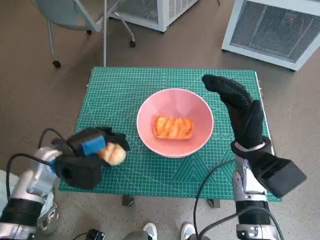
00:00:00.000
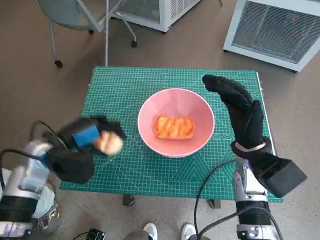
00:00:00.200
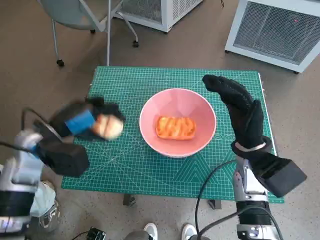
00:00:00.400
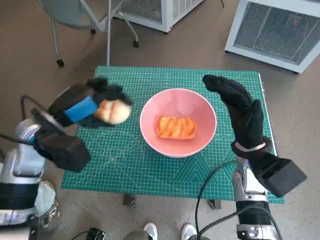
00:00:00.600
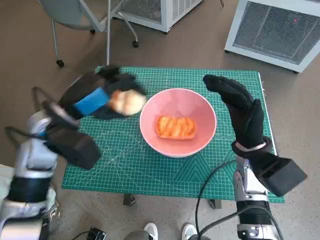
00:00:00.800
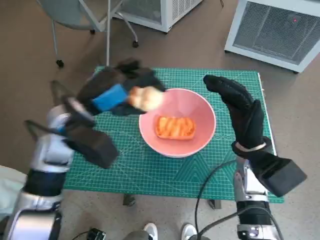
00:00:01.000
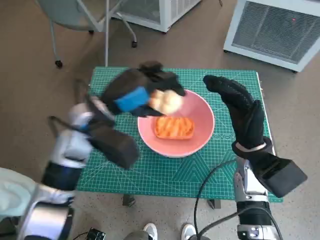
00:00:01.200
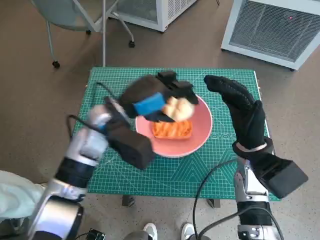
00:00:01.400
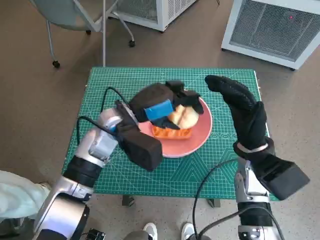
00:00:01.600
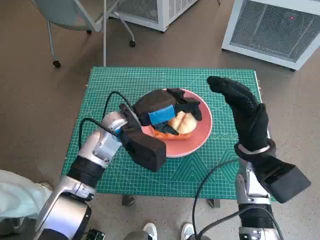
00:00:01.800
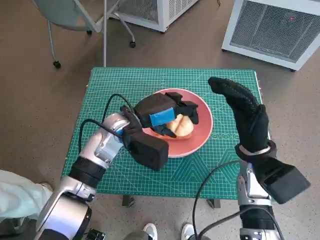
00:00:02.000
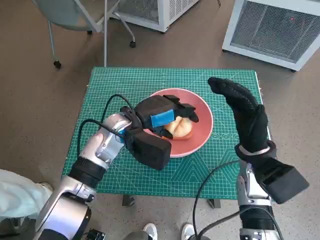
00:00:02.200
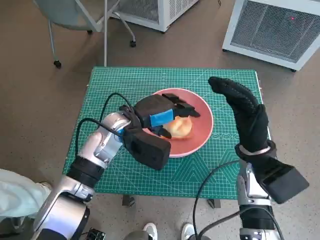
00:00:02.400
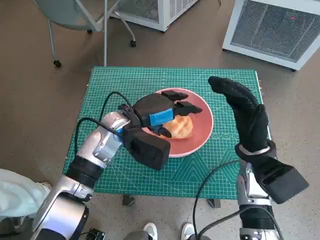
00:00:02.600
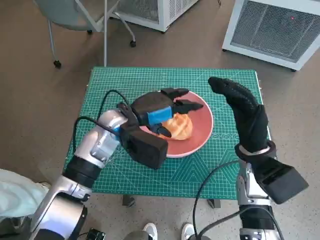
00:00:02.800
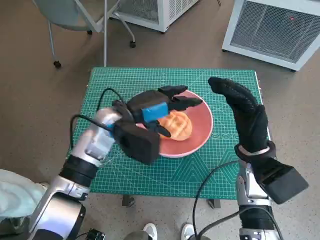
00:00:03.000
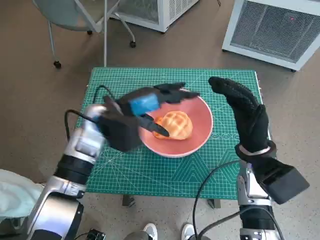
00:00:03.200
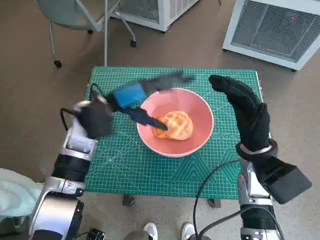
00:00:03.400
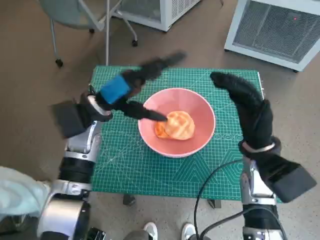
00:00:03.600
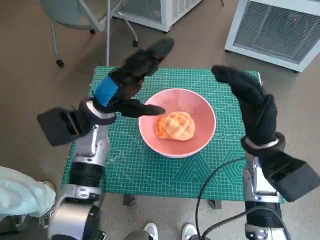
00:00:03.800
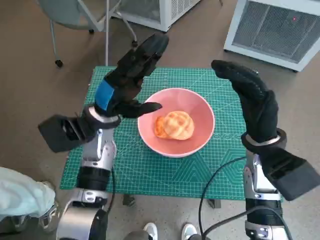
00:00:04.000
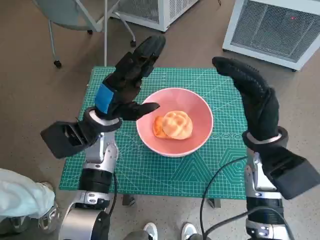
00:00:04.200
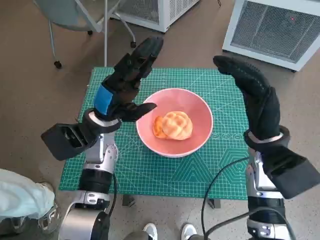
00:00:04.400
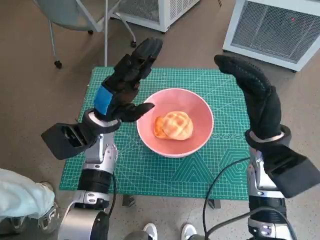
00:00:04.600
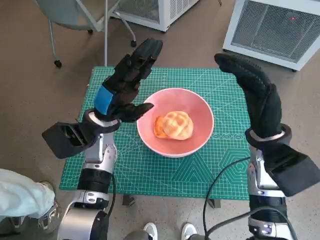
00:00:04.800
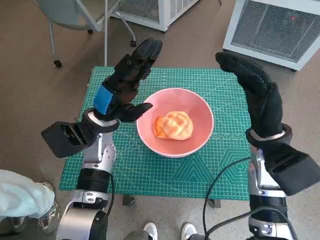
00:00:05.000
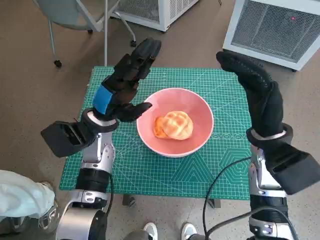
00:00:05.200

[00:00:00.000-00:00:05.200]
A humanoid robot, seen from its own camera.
Task of the whole recording: Push the bowl into the center of the table and put the bread into the bowl.
Step, 00:00:00.000 to 00:00:02.800: Place the round bread in pink bowl with left hand.
00:00:00.000 to 00:00:01.800: The left hand moves to the right and forward, roughly 15 cm.
00:00:01.800 to 00:00:03.400: The left hand ends up approximately 5 cm from where it was.

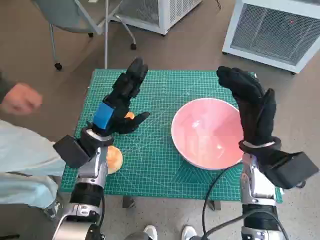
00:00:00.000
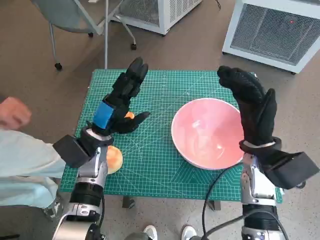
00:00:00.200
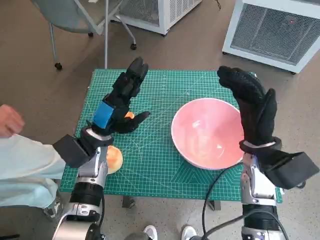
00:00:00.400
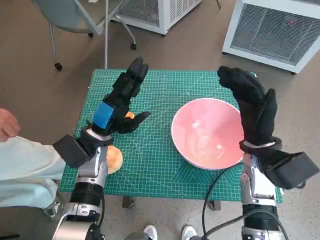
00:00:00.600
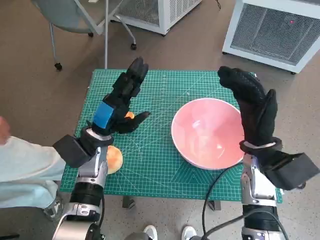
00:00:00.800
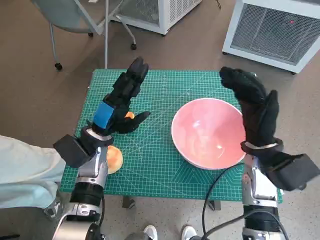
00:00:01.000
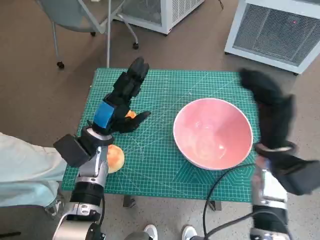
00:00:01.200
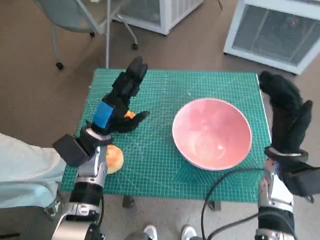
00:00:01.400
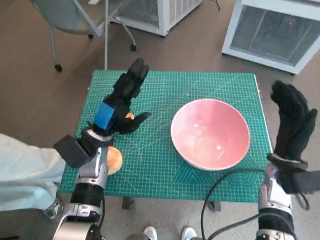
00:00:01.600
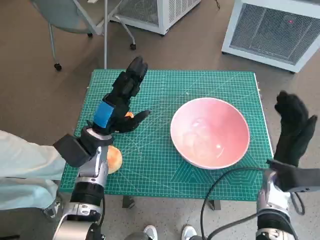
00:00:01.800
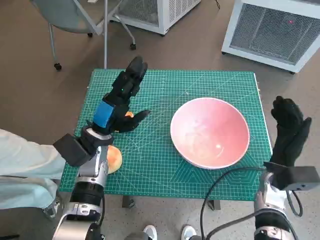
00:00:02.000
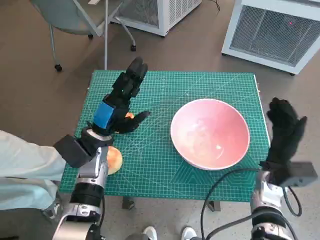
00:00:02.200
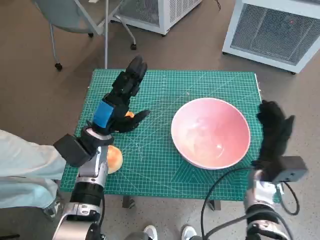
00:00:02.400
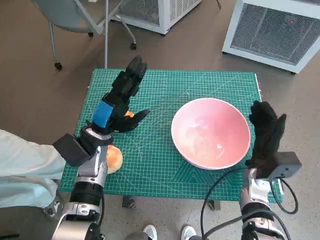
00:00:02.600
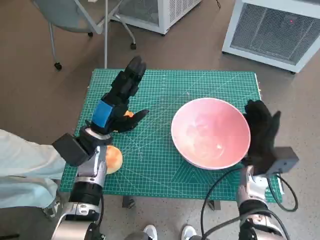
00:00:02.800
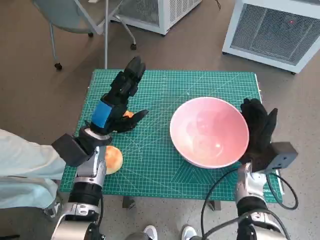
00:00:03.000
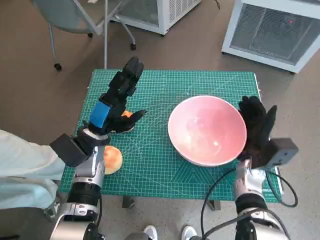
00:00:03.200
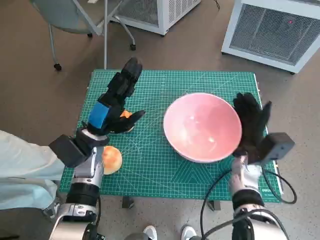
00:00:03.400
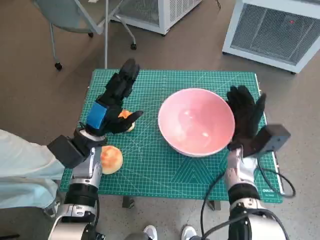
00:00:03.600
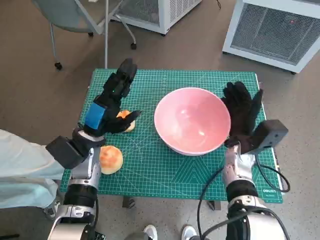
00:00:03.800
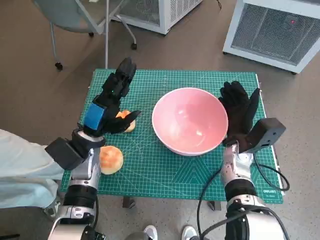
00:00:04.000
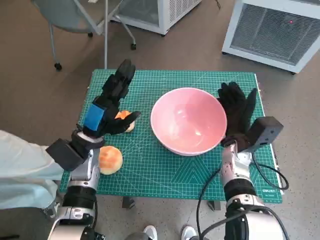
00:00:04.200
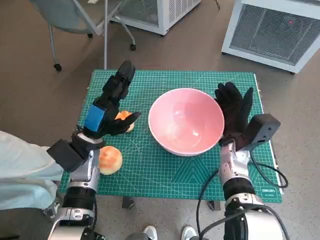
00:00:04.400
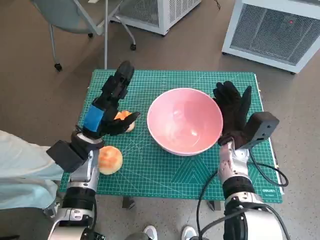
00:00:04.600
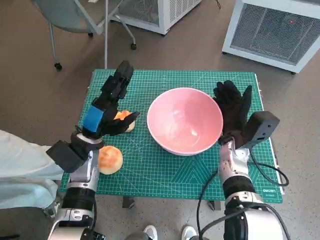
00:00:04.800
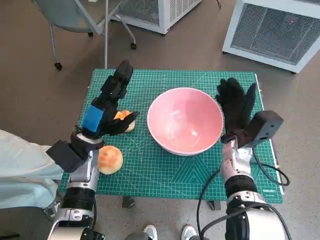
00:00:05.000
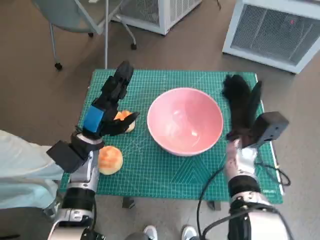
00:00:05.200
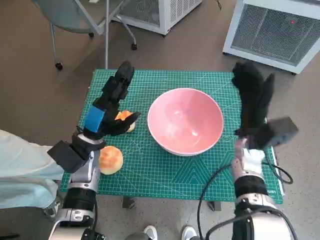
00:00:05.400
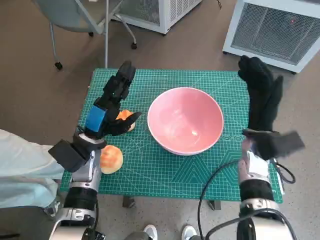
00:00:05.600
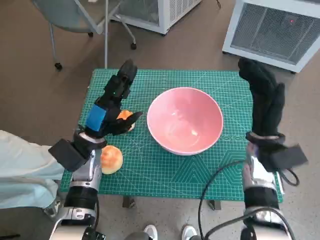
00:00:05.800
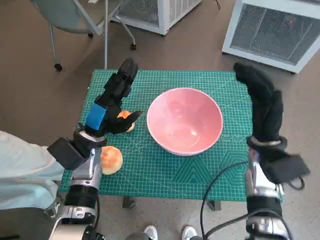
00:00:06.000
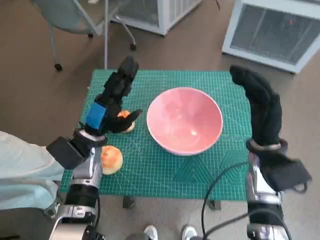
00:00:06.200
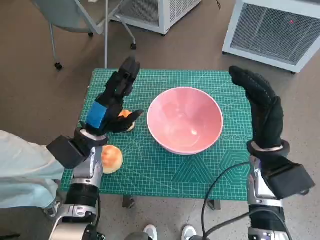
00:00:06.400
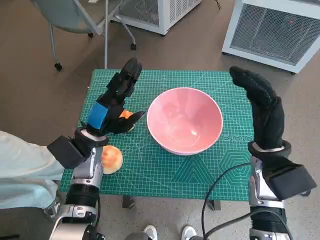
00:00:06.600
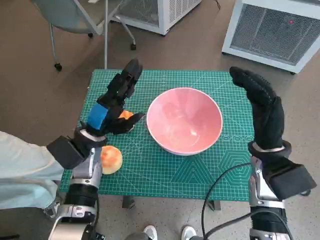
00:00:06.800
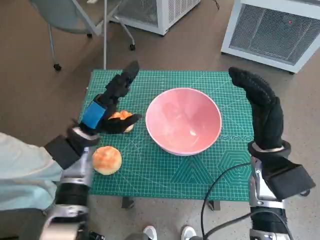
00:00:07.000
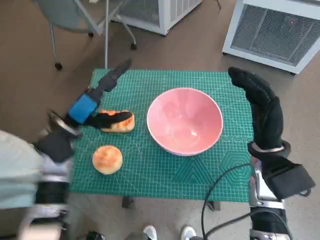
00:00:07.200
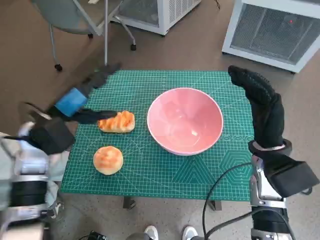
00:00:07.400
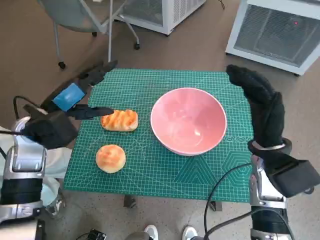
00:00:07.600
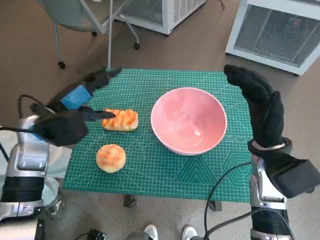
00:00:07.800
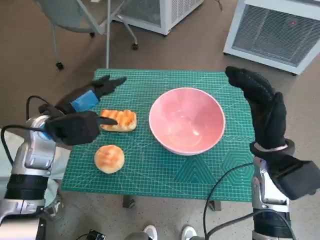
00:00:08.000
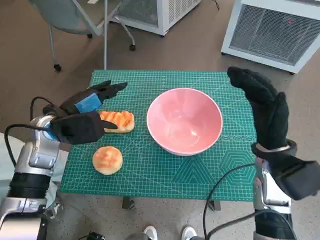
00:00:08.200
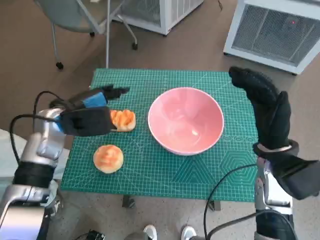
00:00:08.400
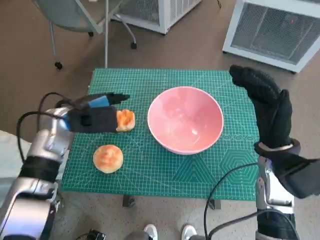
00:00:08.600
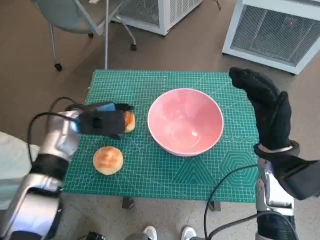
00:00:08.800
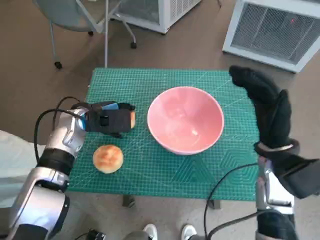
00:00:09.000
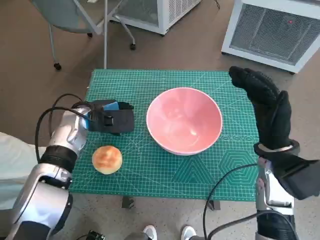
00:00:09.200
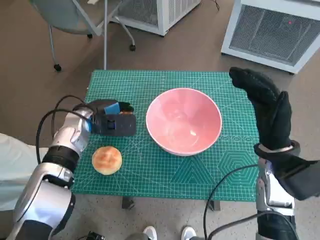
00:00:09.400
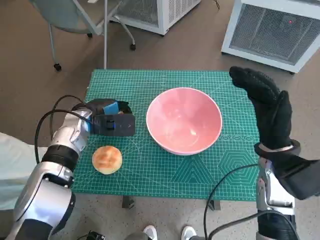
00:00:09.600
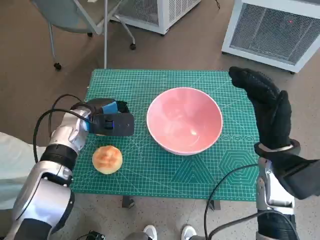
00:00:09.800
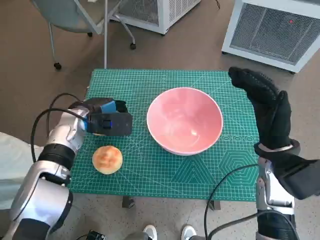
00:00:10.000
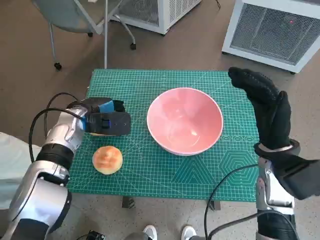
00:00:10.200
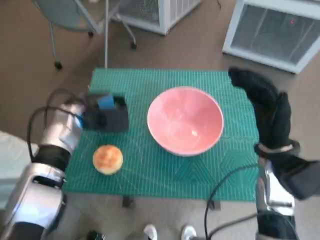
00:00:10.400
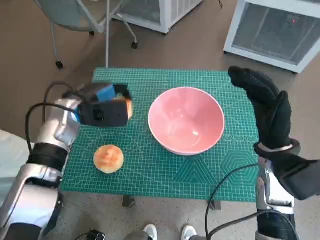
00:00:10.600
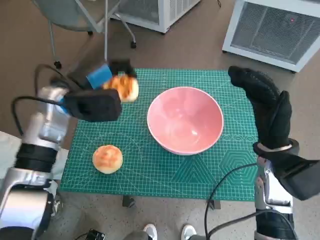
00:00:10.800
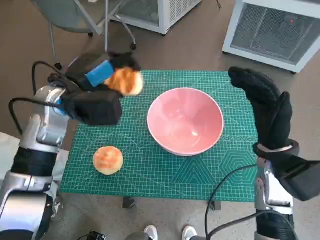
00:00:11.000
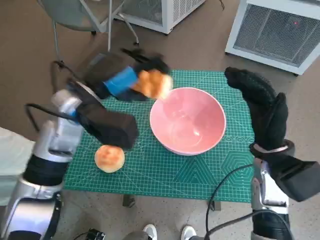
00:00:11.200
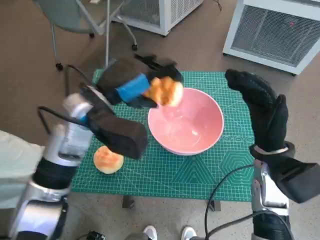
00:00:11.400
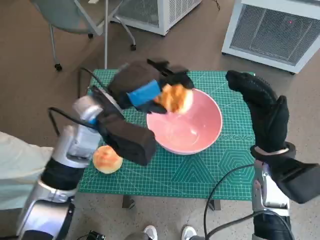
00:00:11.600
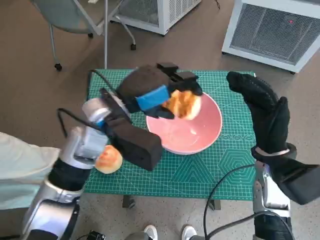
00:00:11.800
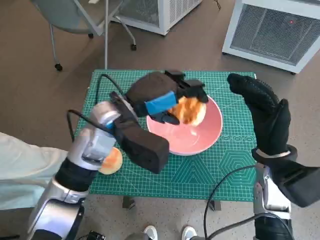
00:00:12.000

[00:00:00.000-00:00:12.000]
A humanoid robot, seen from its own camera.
Task of the whole recording: Push the bowl into the center of the table and put the bread into the bowl.
Step, 00:00:00.000 to 00:00:05.000: Move the pink bowl to the center of table with right hand.
Step, 00:00:05.200 to 00:00:09.600: Grasp the long bread with left hand.
00:00:01.600 to 00:00:03.000: The right hand travels downward by about 5 cm.
00:00:03.000 to 00:00:04.400: The right hand moves about 5 cm.
00:00:04.400 to 00:00:06.000: The right hand moves upward, about 5 cm.
00:00:06.000 to 00:00:07.600: The left hand heads upward and to the left, covering some 10 cm.
00:00:07.600 to 00:00:09.000: The left hand goes roughly 10 cm downward and forward.
00:00:09.000 to 00:00:10.400: The hands move only a little.
00:00:10.400 to 00:00:12.000: The left hand shifts about 15 cm to the right and upward.

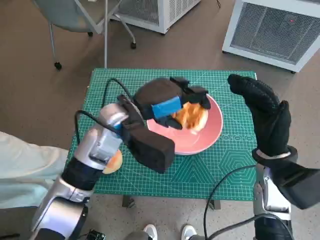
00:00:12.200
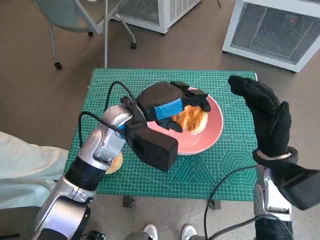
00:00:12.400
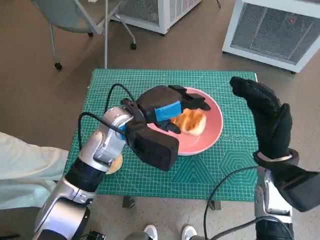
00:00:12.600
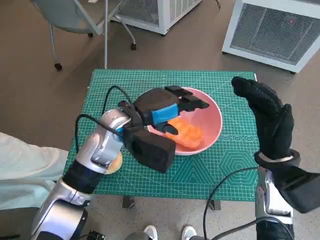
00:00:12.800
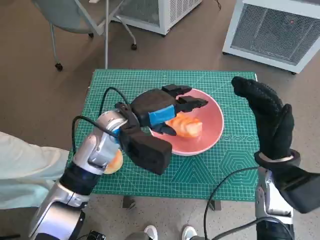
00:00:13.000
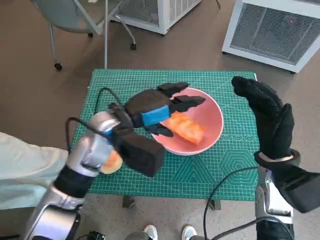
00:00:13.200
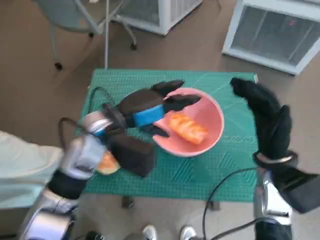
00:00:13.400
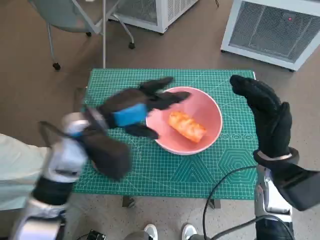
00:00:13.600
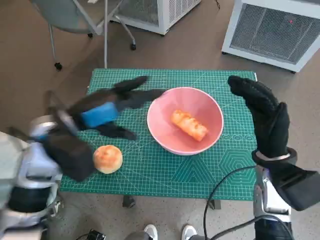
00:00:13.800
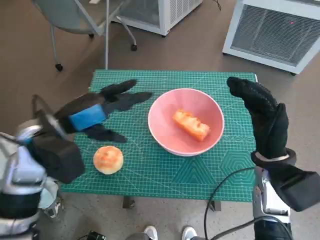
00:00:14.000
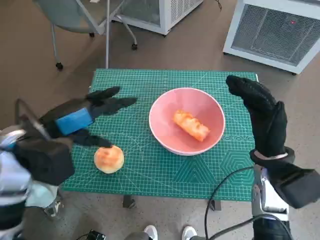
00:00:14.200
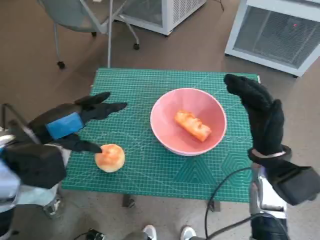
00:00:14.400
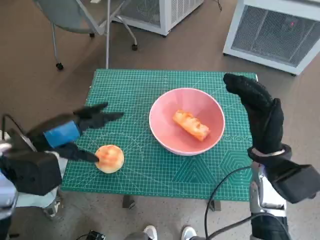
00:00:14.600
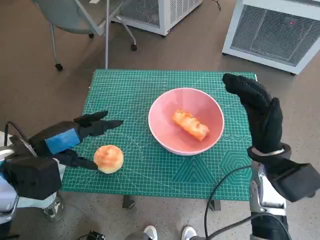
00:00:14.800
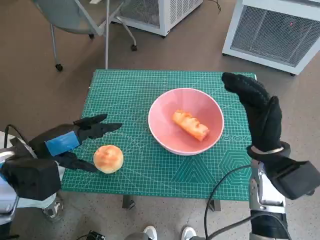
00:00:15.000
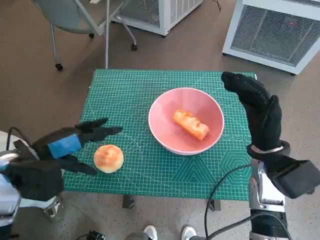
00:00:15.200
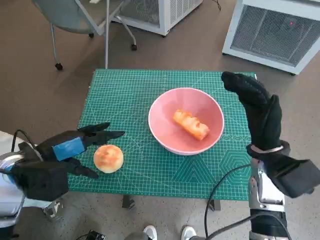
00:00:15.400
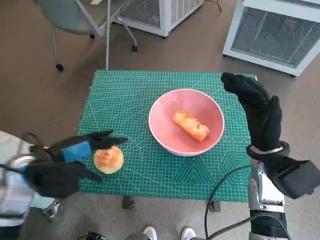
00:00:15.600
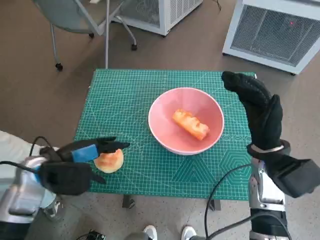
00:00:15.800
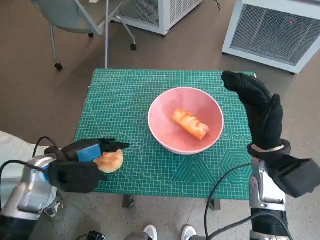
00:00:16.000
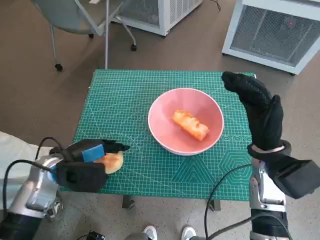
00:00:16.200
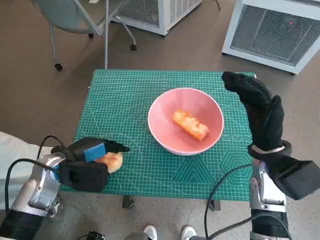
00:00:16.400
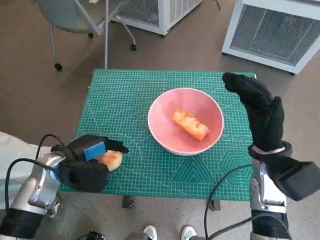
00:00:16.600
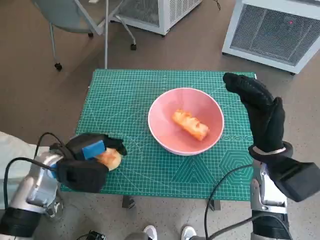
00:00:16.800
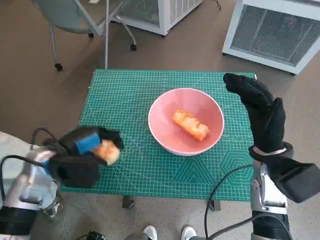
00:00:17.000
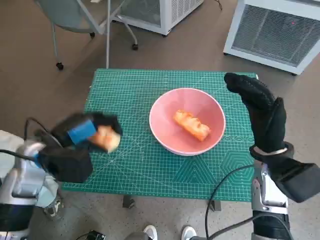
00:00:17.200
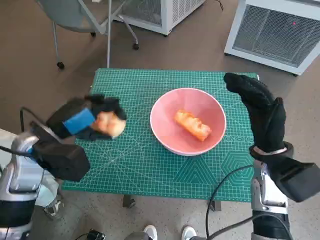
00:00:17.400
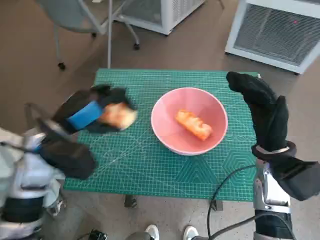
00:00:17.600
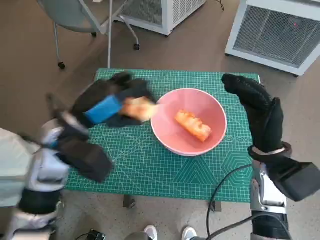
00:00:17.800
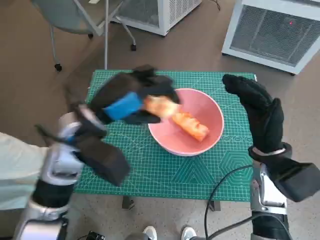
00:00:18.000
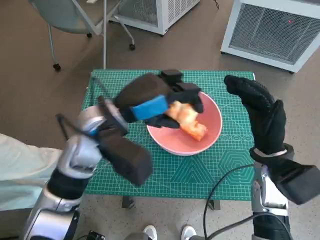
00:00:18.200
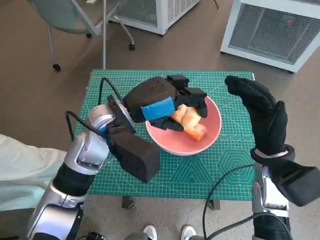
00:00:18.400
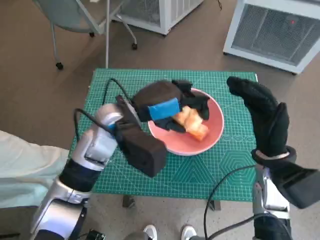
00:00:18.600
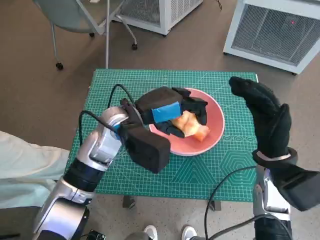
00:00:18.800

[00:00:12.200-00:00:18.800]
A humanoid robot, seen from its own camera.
Task of the whole recording: Push the bowl into the center of the table and put the bread into the bowl.
Step, 00:00:13.200 to 00:00:16.400: Grasp the round bread with left hand.
00:00:12.200 to 00:00:13.800: The left hand travels to the left by roughly 10 cm.
00:00:13.800 to 00:00:15.400: The left hand heads to the left and backward, covering approximately 10 cm.
00:00:17.200 to 00:00:18.800: The left hand moves to the right, roughly 15 cm.
